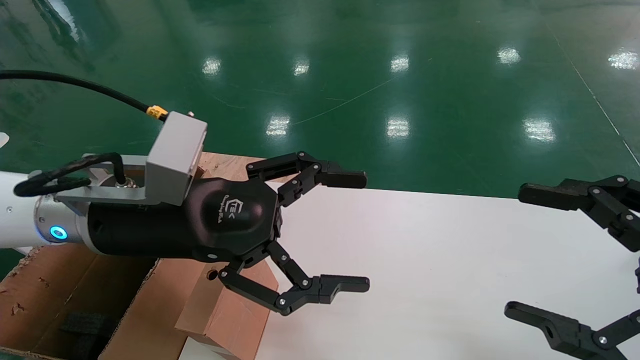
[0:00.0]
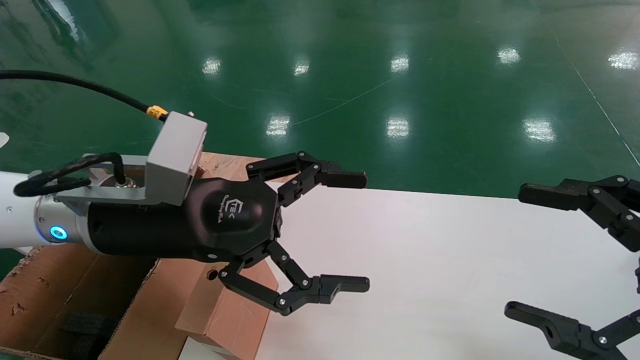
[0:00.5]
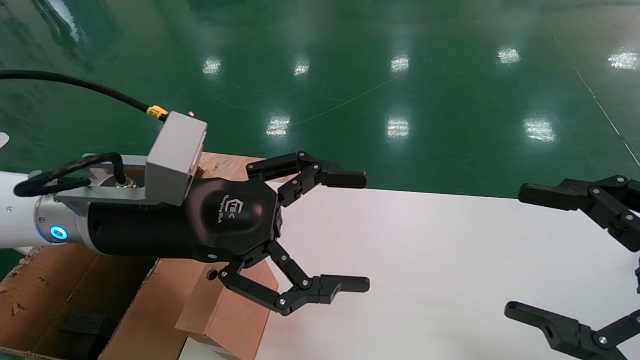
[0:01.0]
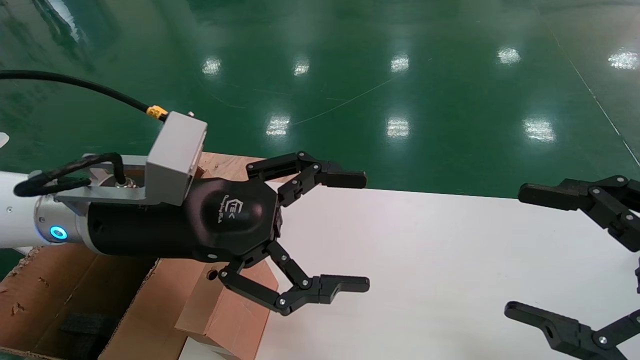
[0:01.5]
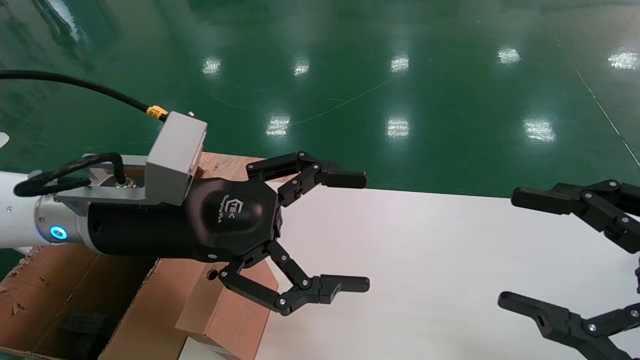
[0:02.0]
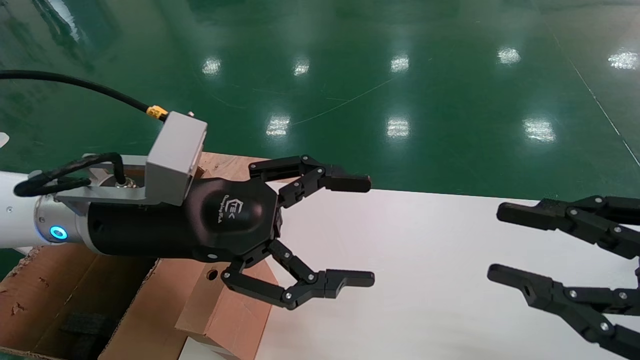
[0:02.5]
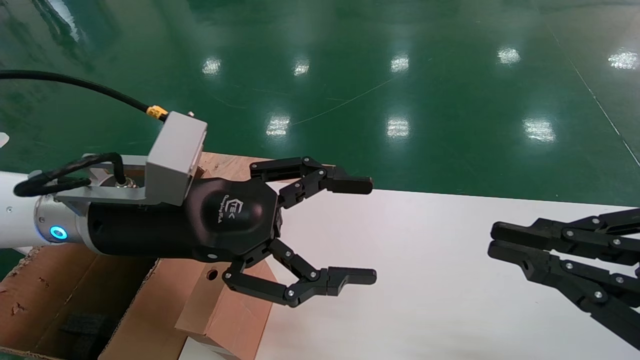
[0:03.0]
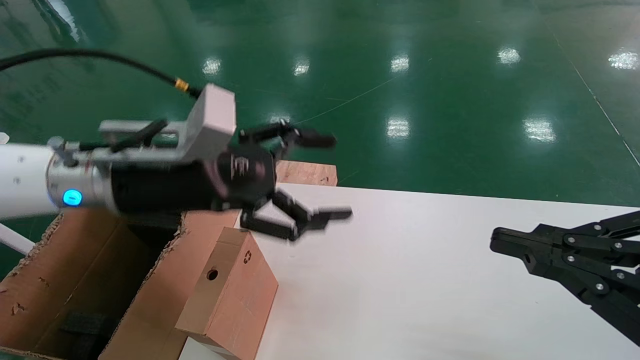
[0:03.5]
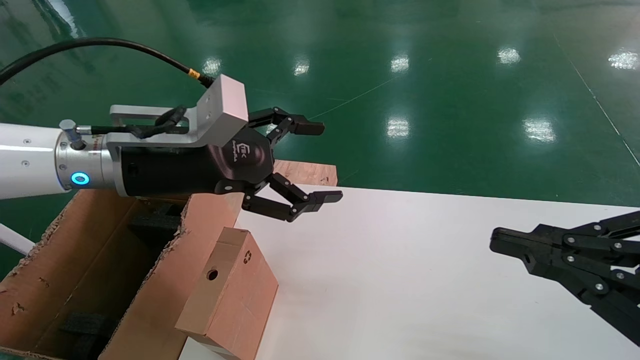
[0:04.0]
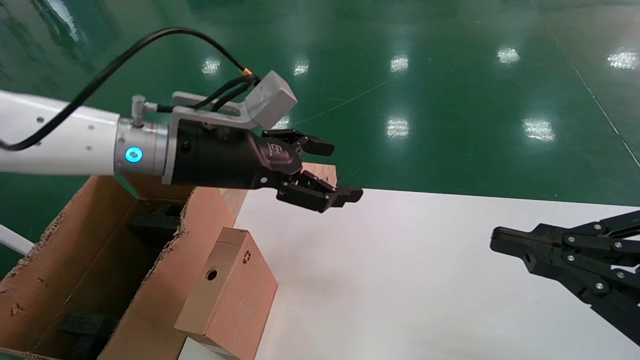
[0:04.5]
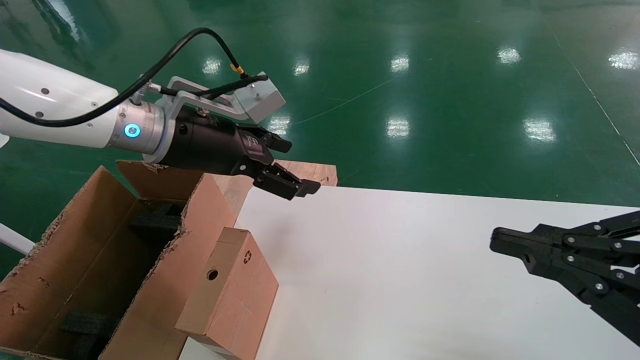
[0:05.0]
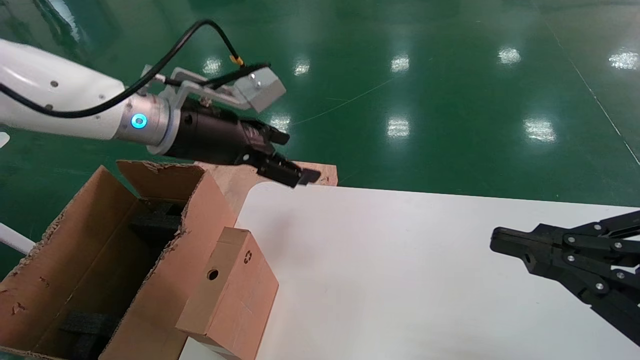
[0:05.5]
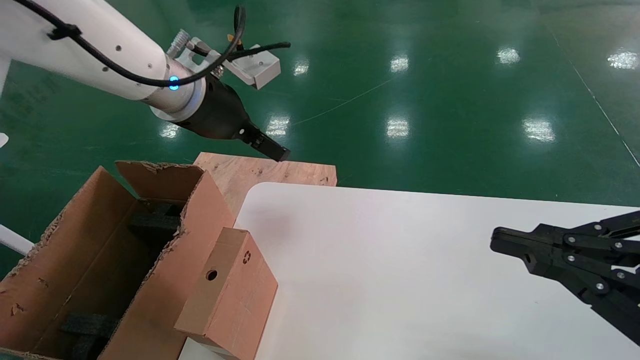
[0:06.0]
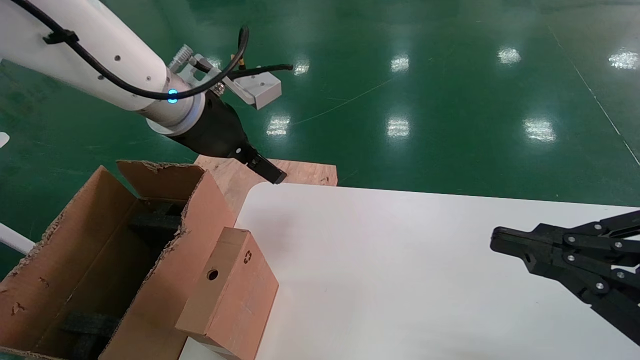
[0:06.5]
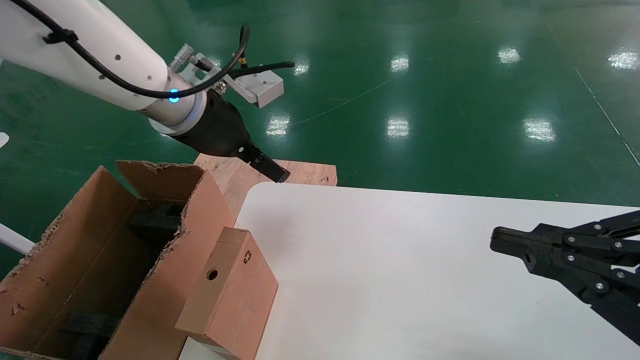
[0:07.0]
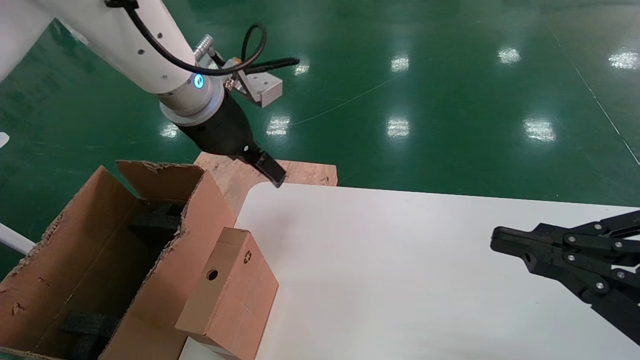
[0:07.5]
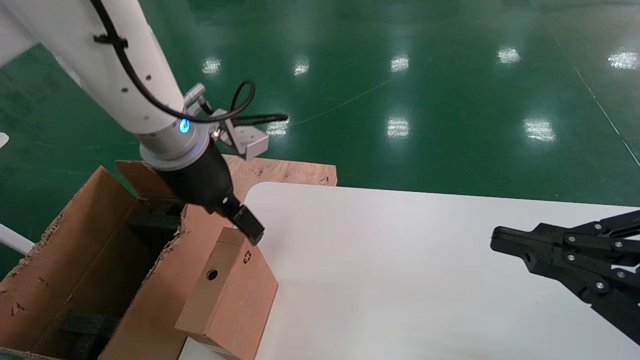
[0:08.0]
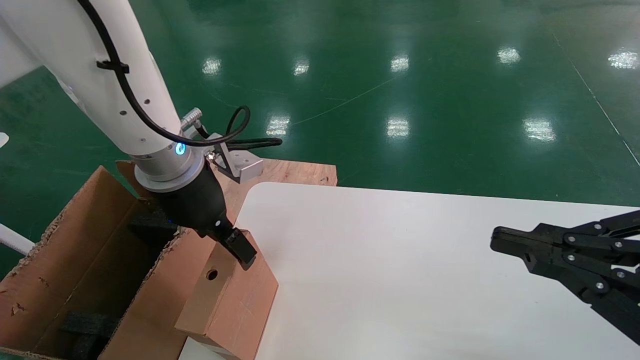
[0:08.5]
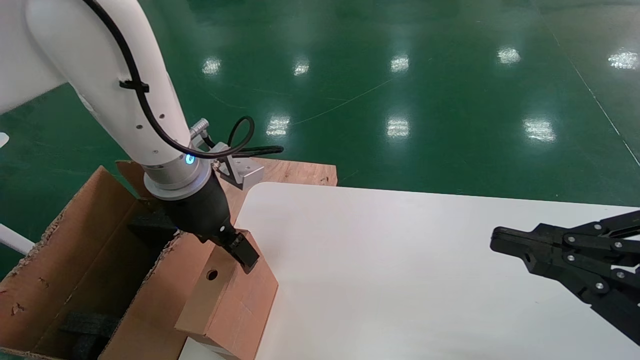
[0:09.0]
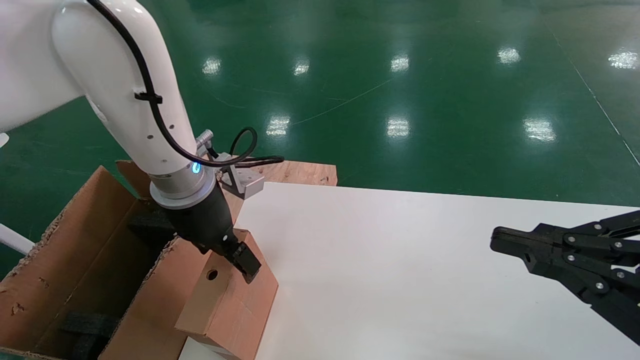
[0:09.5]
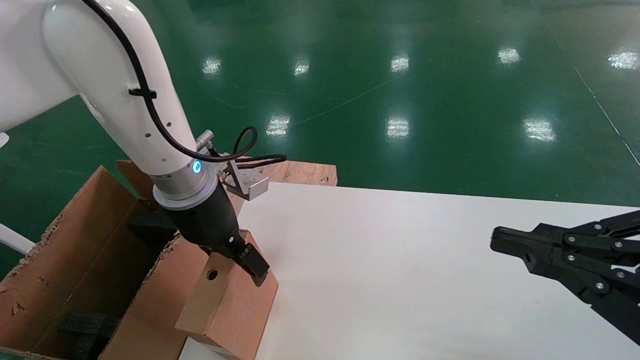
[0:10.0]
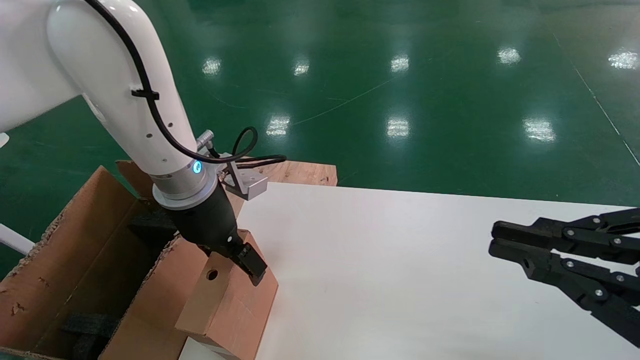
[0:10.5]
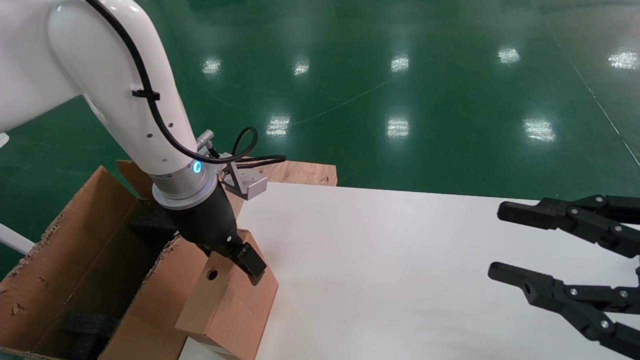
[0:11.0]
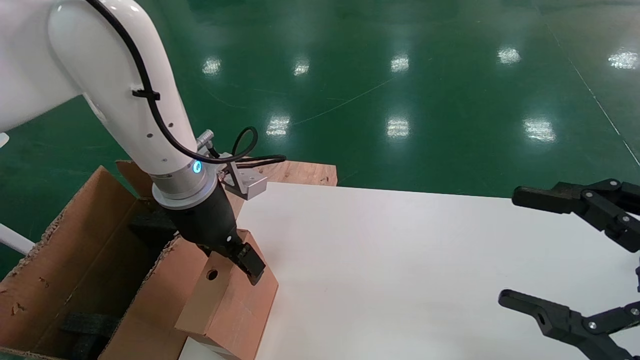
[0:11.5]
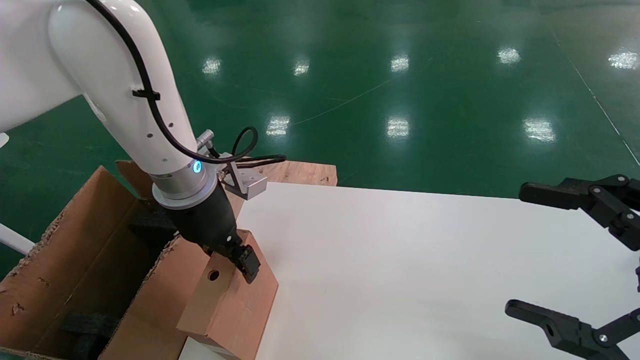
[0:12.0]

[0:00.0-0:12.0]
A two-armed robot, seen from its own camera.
Task of the whole recording: place the small box on the table into the large box on the left.
0:00.0 to 0:02.0: Both grippers stay about where they are.
0:02.0 to 0:04.0: The right gripper closes. Meanwhile the left gripper is displaced forward by some 5 cm.
0:04.0 to 0:06.0: The left gripper shifts roughly 10 cm forward and upward.
0:06.0 to 0:08.0: The left gripper ends up some 5 cm from where it was.
0:08.0 to 0:10.0: The left gripper is displaced downward by some 5 cm.
0:10.0 to 0:12.0: The right gripper opens up.

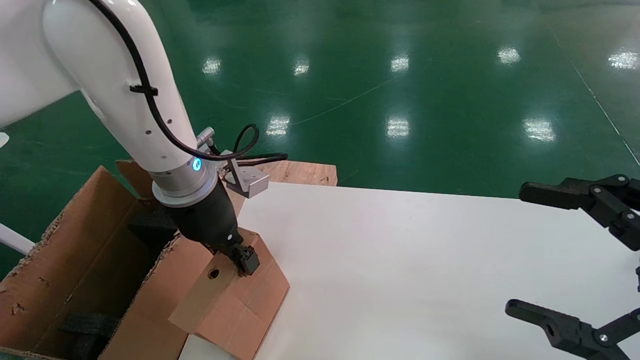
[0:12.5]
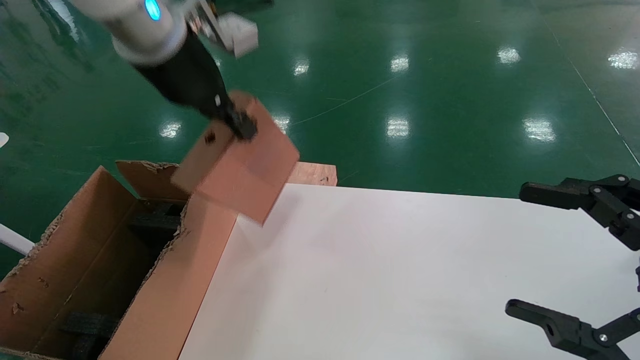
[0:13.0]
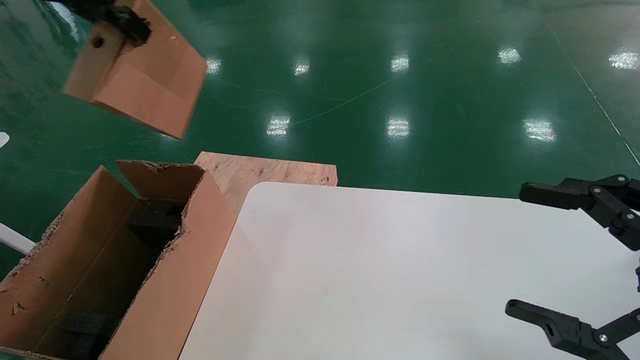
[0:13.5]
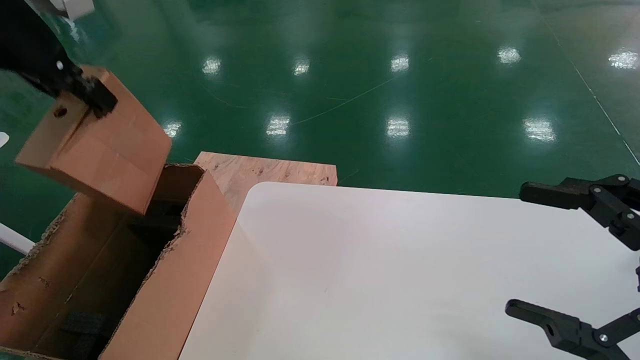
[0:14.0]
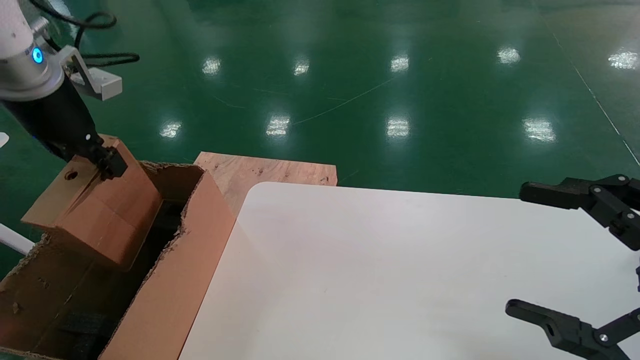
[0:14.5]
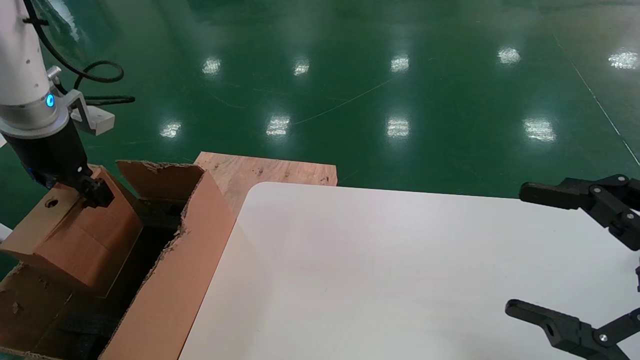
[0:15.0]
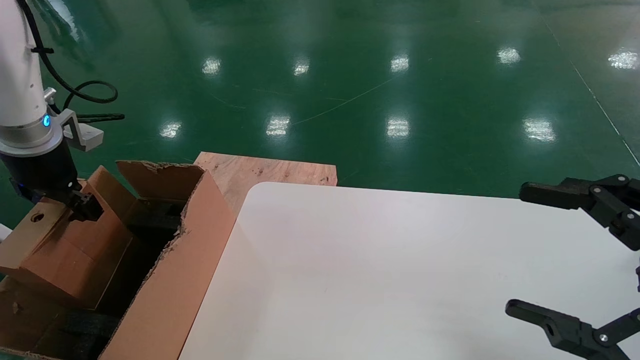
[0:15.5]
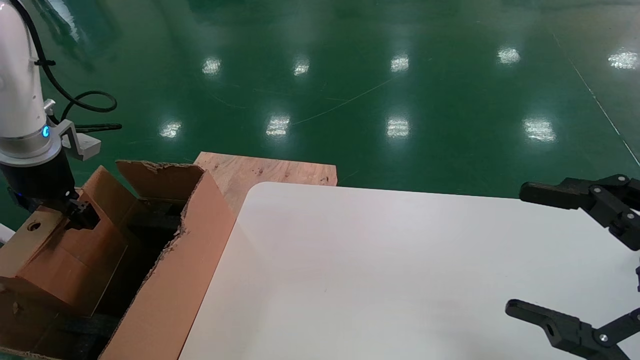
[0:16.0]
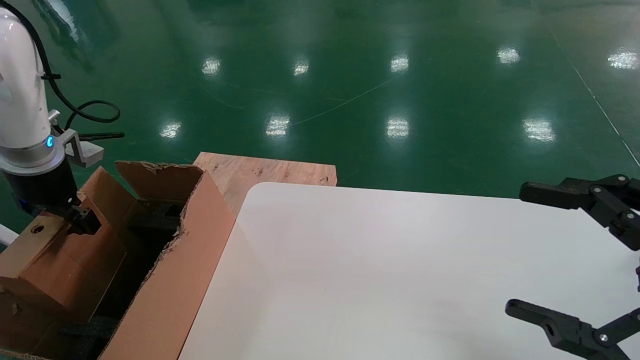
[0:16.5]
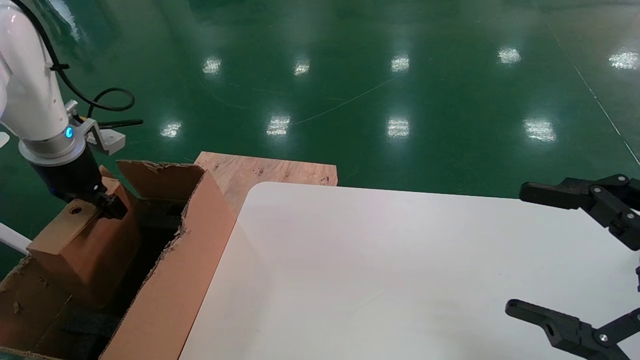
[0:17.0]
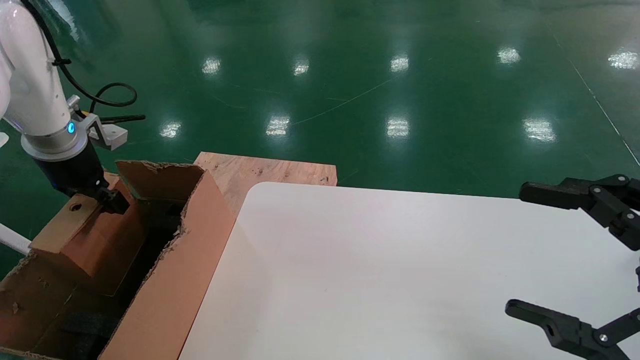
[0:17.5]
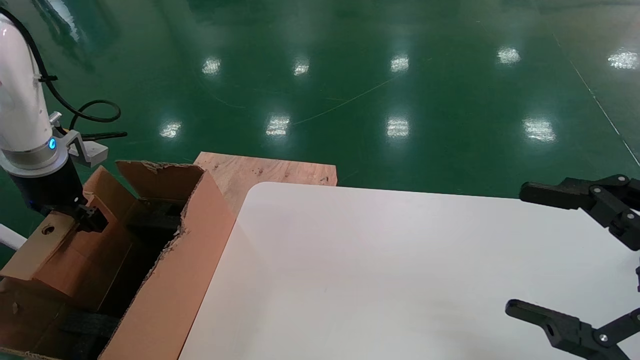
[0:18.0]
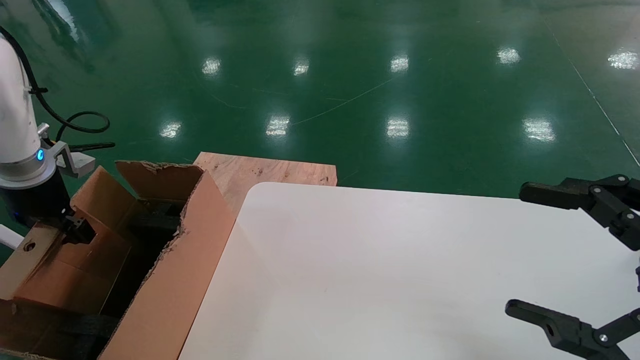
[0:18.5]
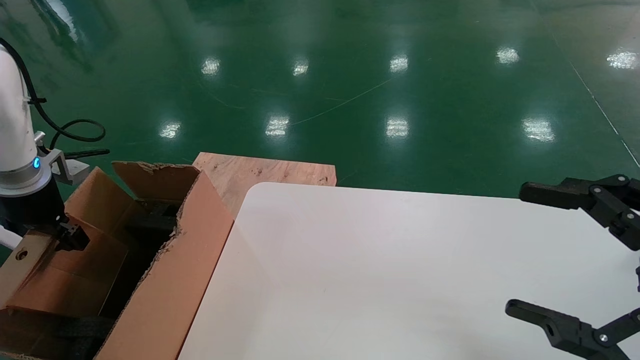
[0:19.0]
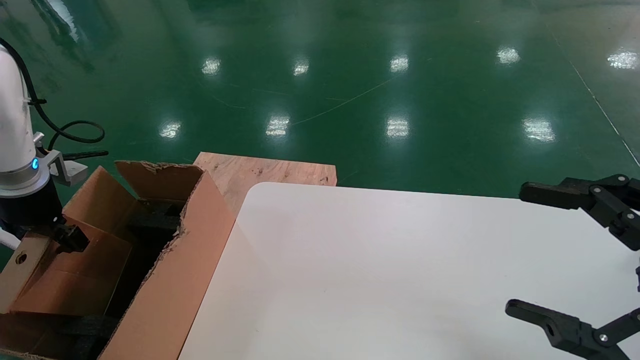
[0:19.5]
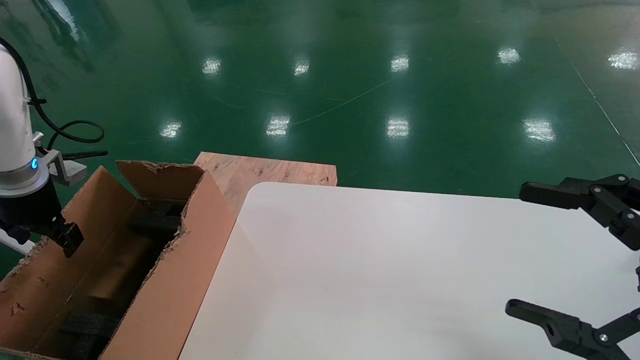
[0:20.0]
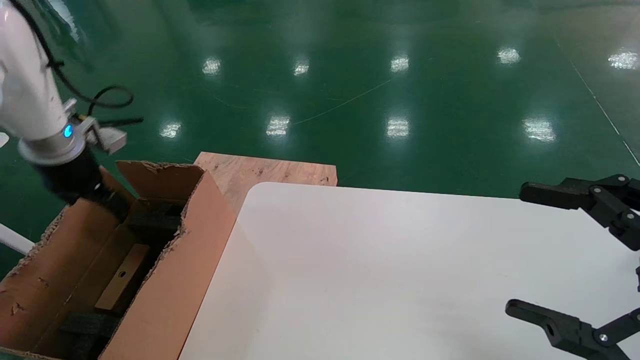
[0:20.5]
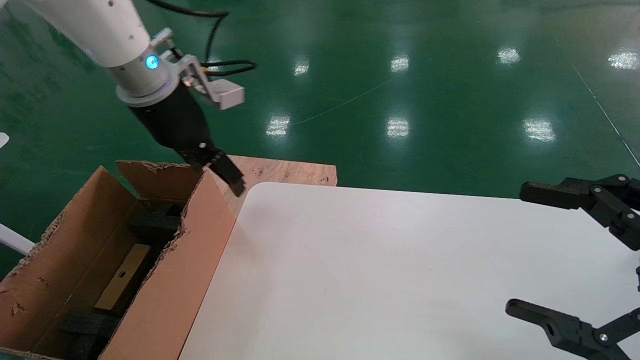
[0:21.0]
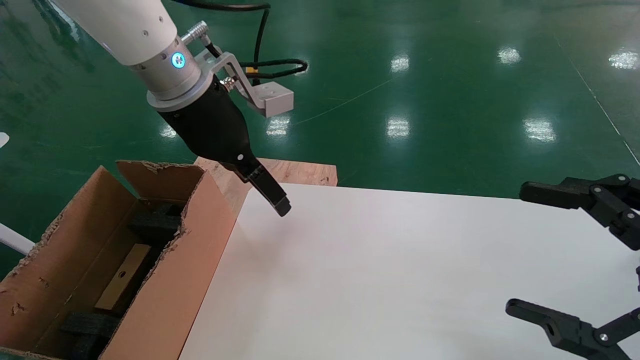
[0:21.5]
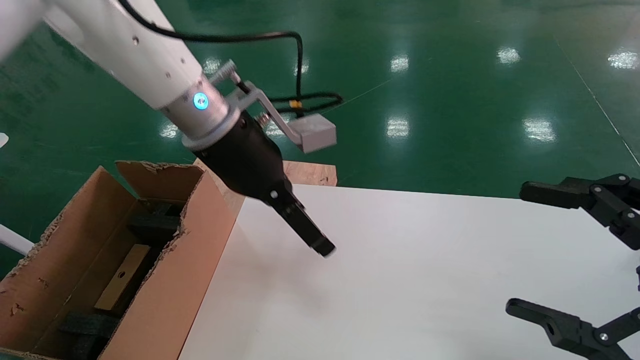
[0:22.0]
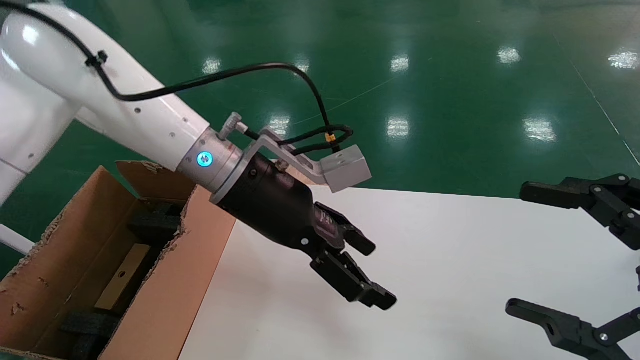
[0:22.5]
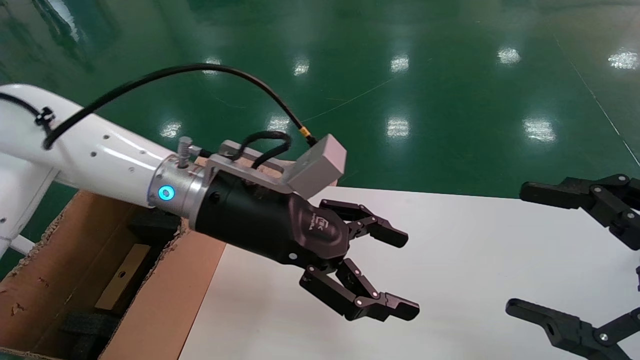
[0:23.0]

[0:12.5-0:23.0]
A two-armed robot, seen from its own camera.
Task of the whole recording: place the small box on the table into the large box on the left.
Step, 0:12.5 to 0:20.0: Place the mouse and the power cord paper box into the container.
0:12.5 to 0:14.5: The left gripper heads to the left and upward, covering some 20 cm.
0:14.5 to 0:16.5: The left gripper is displaced downward and to the left by approximately 15 cm.
0:16.5 to 0:19.0: The grippers stay close to where they were, moving slightly.
0:19.0 to 0:21.0: The left gripper heads to the right and upward, covering about 25 cm, and opens its fingers.
0:21.0 to 0:23.0: The left gripper goes about 15 cm to the right, downward and backward.
